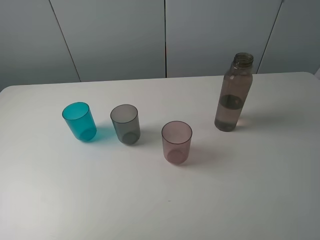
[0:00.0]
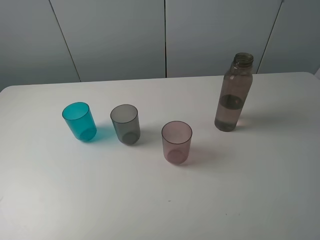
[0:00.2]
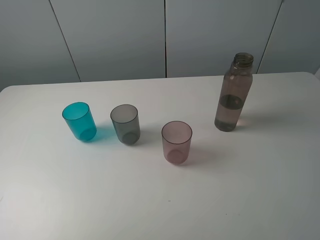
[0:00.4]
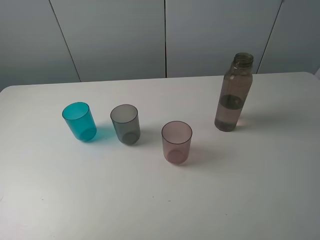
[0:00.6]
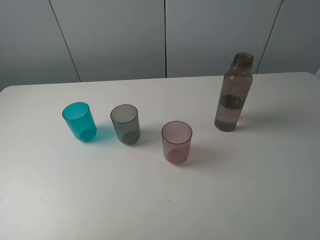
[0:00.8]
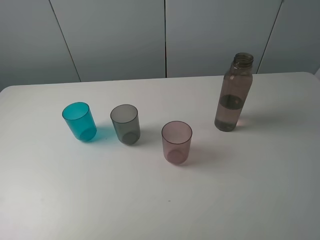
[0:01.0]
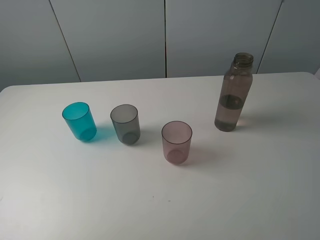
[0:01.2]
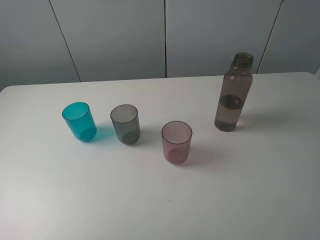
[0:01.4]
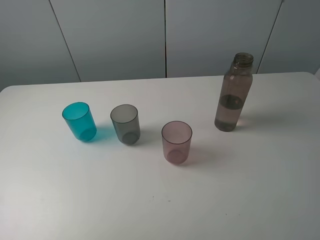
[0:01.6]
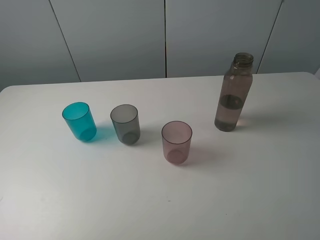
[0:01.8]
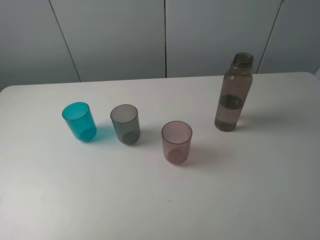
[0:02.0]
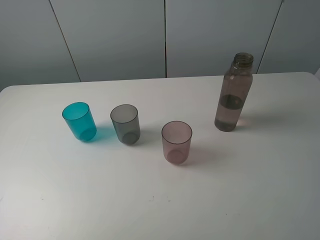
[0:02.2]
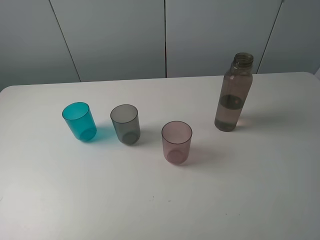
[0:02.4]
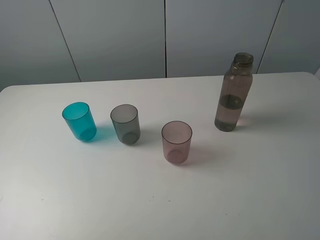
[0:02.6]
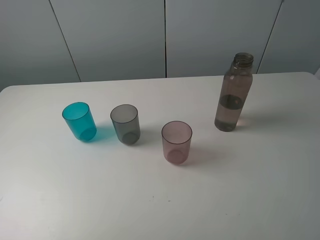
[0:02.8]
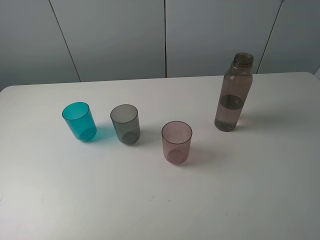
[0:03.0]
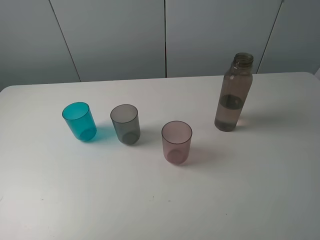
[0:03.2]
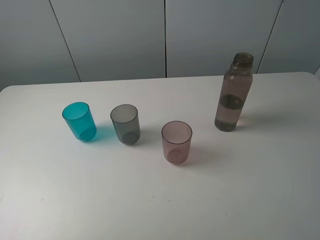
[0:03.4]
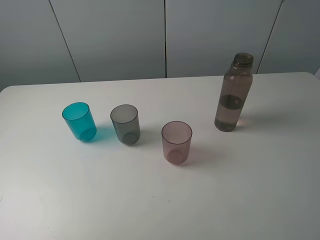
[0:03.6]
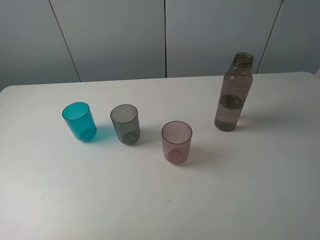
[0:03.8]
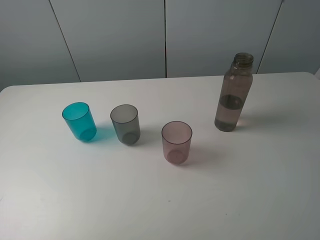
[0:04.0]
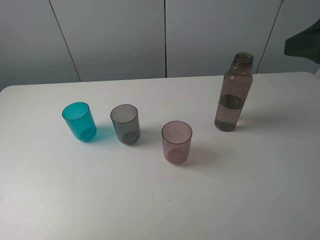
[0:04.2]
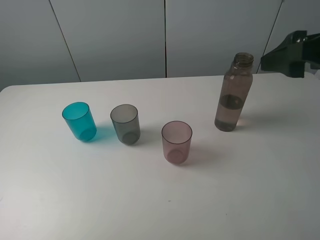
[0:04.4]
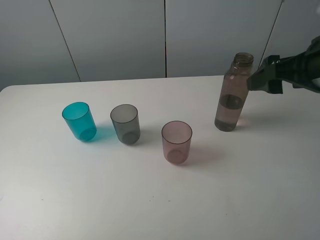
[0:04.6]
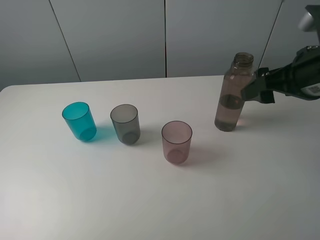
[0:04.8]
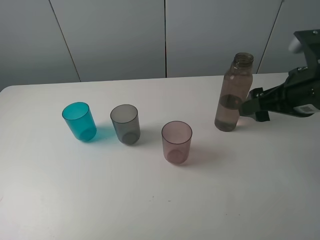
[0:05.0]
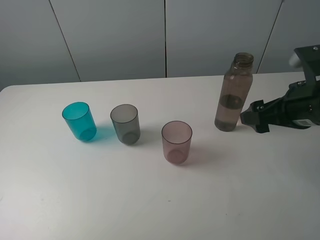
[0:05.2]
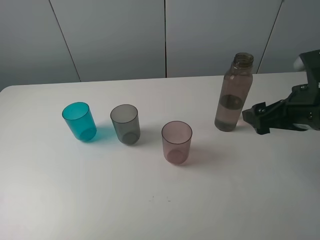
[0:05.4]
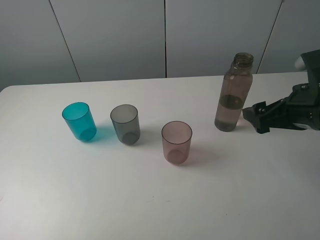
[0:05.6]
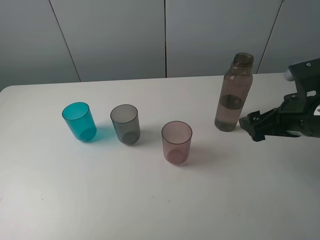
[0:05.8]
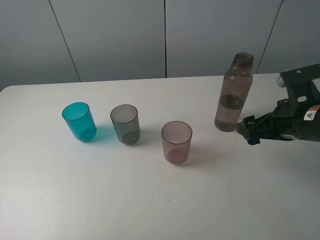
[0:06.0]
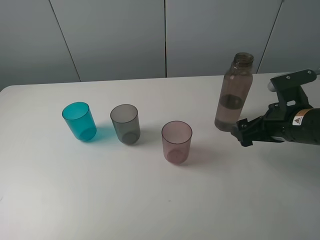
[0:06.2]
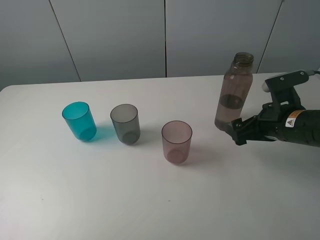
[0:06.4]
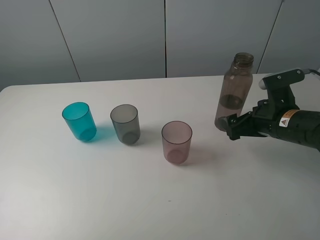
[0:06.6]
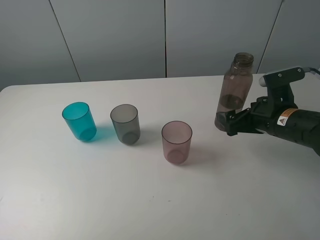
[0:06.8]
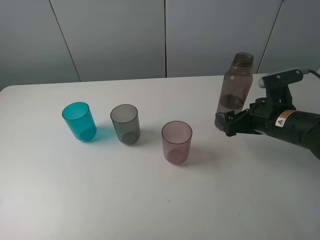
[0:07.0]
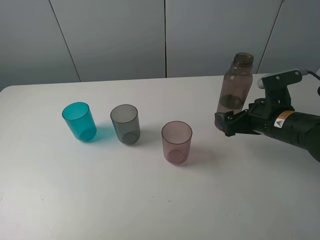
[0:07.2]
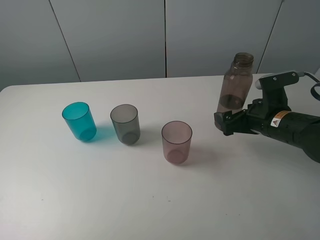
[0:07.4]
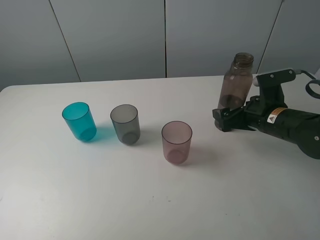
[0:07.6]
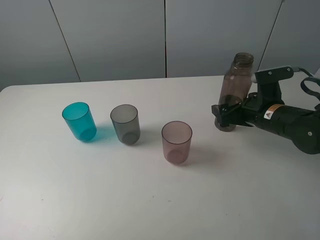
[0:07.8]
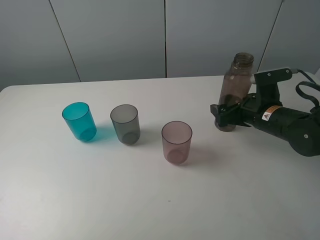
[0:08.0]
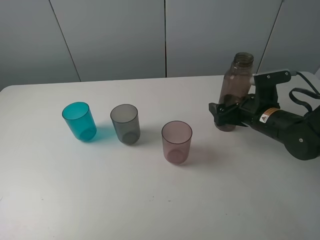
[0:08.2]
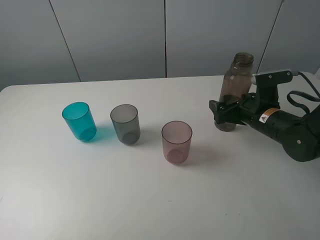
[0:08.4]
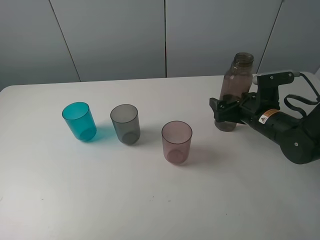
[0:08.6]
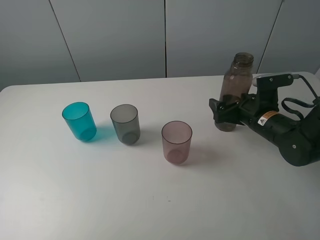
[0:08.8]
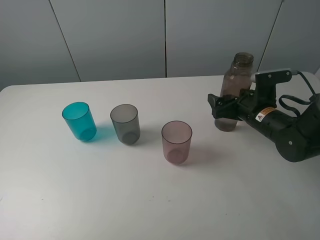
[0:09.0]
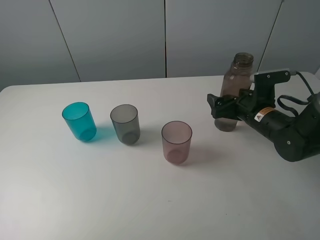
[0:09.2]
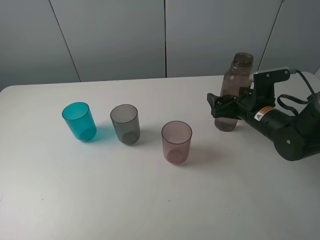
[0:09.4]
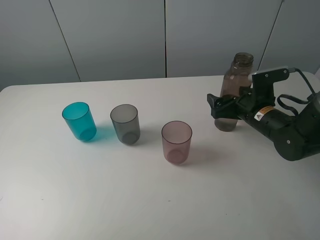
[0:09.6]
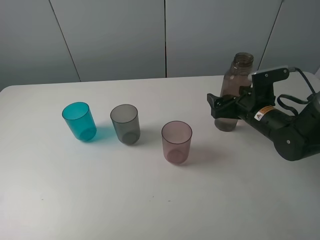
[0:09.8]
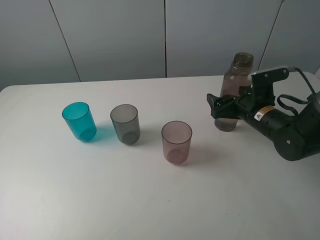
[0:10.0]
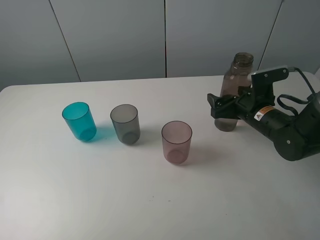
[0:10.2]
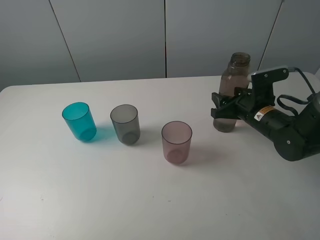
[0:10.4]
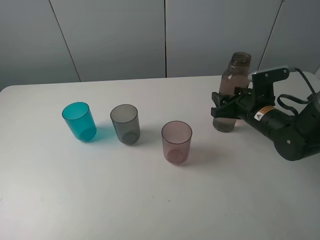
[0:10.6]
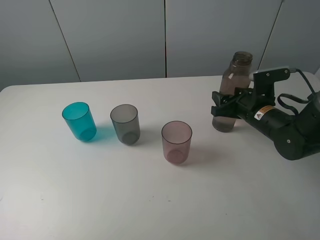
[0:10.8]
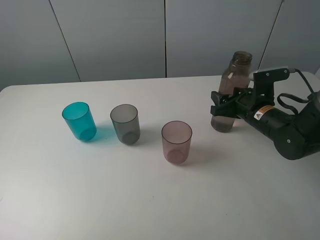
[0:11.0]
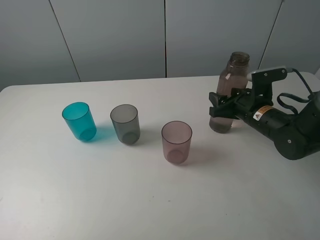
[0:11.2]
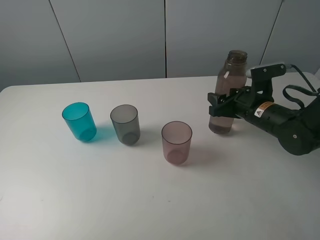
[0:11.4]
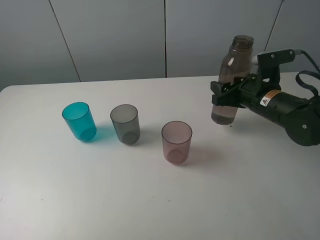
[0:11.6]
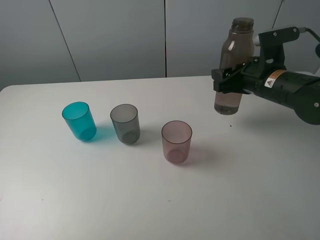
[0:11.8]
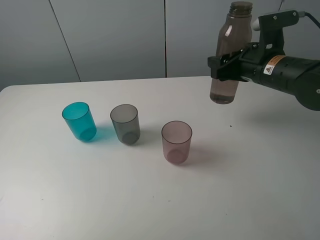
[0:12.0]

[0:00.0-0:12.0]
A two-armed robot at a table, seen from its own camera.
Task of the whole recording: pick up the bottle filled with water and pour water into the middle cup of the three cups.
Step, 0:00.0 to 0:11.2: Grasp the brown bottle with the right gripper.
0:00.0 to 0:03.0: Both grippers stay put.
0:03.0 to 0:04.4: The right gripper shifts approximately 20 cm forward.
0:04.4 to 0:06.0: The right gripper shifts some 15 cm downward.
0:06.0 to 0:07.6: The right gripper shifts roughly 5 cm forward.
0:07.6 to 0:09.0: The grippers stay close to where they were, moving slightly.
0:09.0 to 0:10.4: The right gripper closes its fingers.
0:10.4 to 0:12.0: The right gripper shifts roughly 10 cm upward.

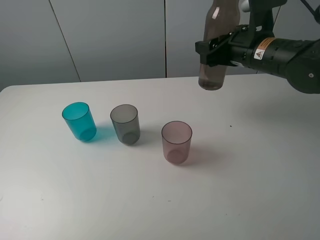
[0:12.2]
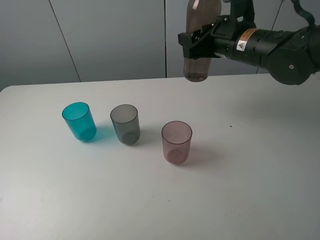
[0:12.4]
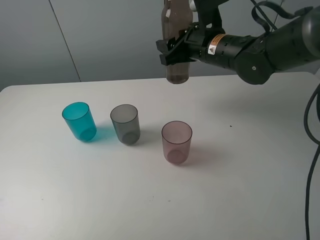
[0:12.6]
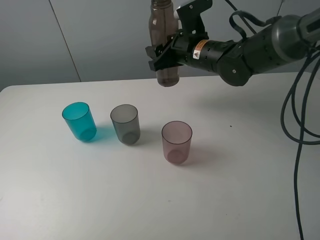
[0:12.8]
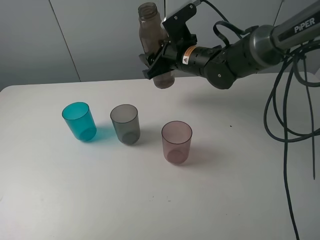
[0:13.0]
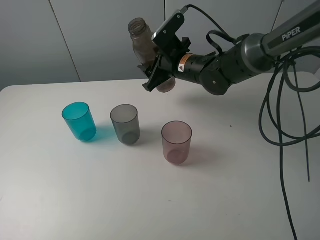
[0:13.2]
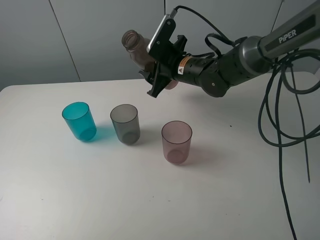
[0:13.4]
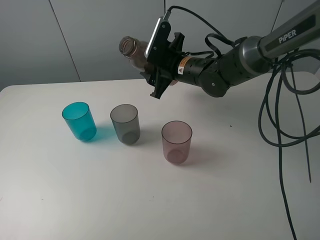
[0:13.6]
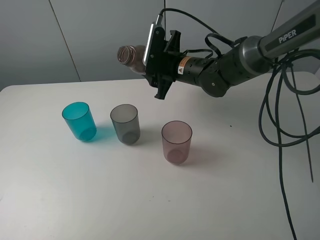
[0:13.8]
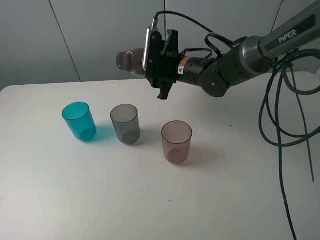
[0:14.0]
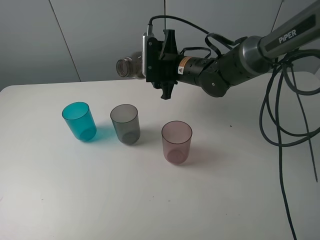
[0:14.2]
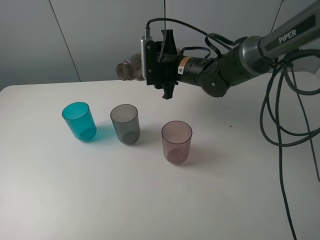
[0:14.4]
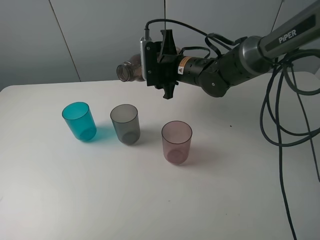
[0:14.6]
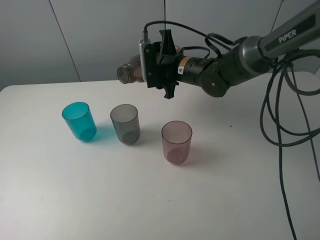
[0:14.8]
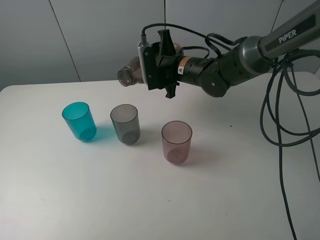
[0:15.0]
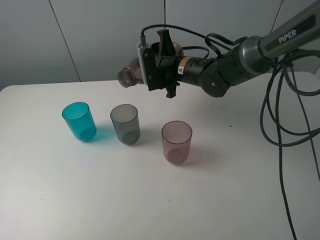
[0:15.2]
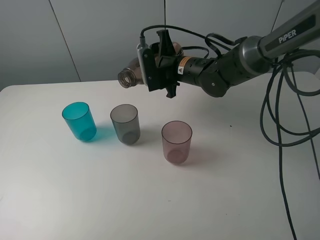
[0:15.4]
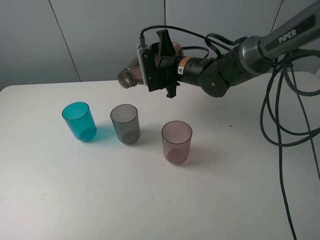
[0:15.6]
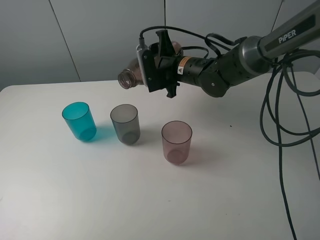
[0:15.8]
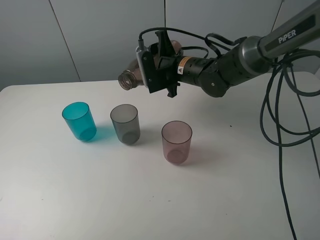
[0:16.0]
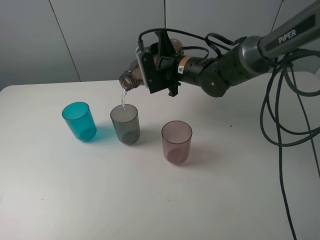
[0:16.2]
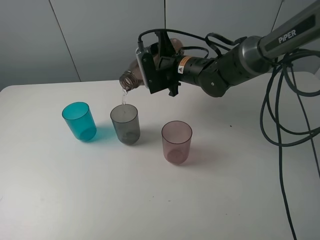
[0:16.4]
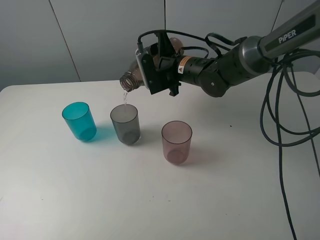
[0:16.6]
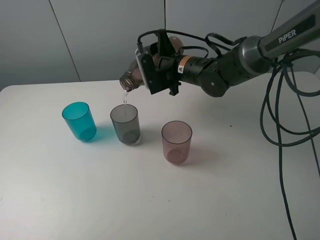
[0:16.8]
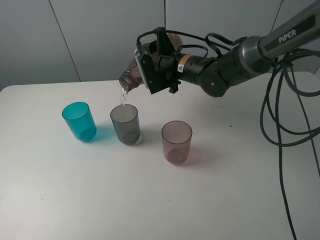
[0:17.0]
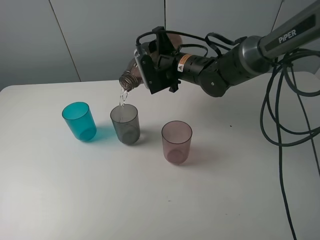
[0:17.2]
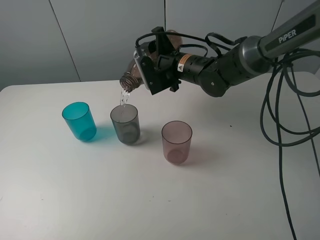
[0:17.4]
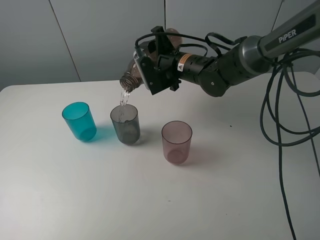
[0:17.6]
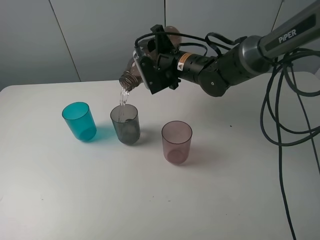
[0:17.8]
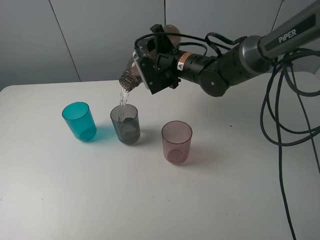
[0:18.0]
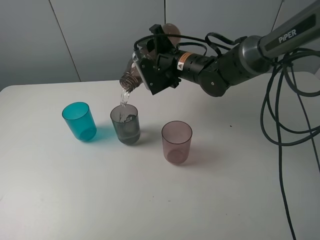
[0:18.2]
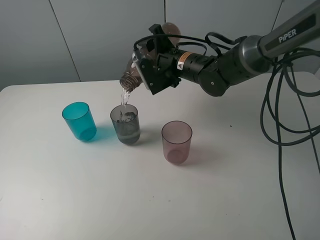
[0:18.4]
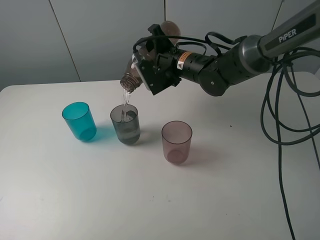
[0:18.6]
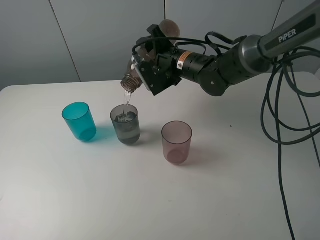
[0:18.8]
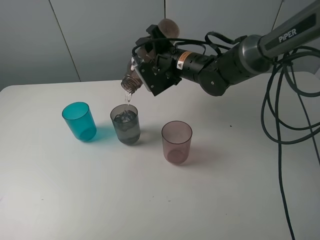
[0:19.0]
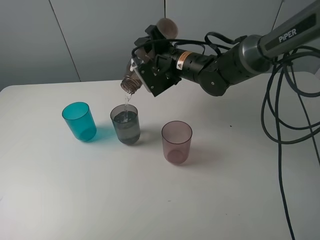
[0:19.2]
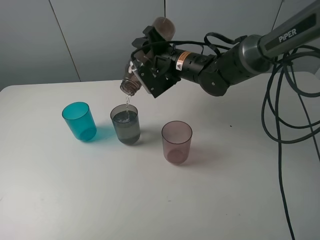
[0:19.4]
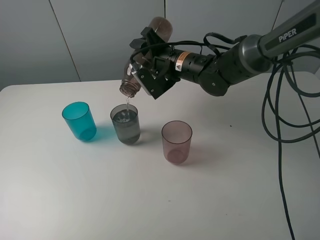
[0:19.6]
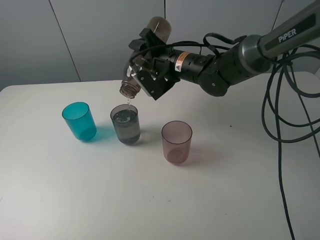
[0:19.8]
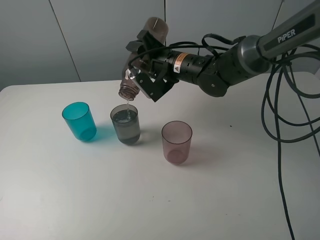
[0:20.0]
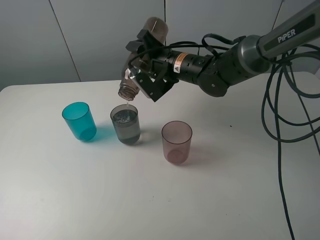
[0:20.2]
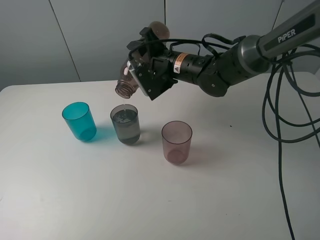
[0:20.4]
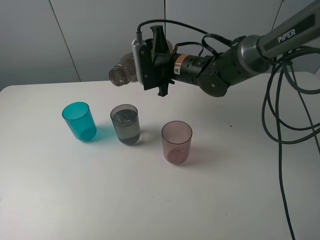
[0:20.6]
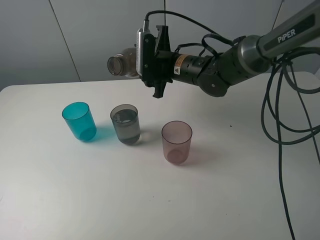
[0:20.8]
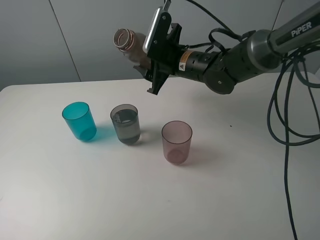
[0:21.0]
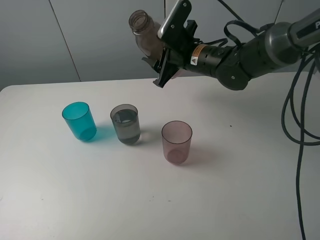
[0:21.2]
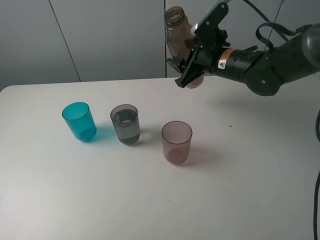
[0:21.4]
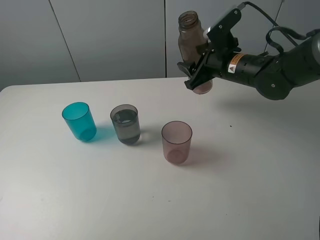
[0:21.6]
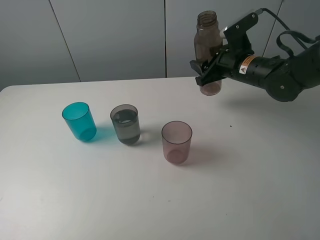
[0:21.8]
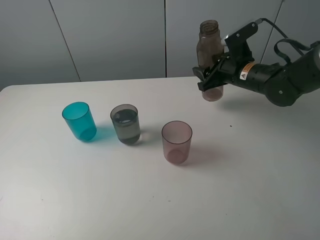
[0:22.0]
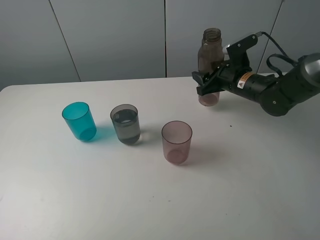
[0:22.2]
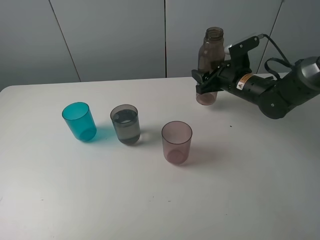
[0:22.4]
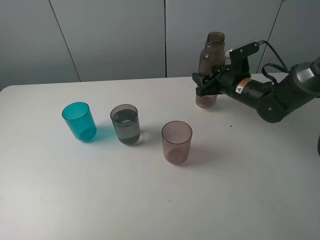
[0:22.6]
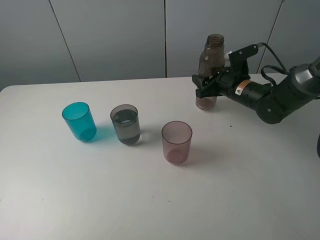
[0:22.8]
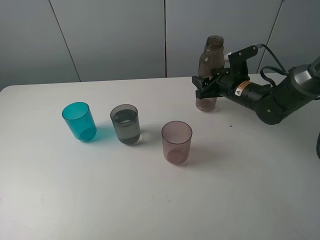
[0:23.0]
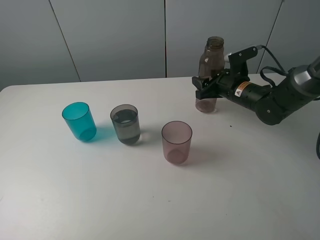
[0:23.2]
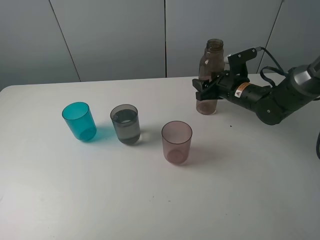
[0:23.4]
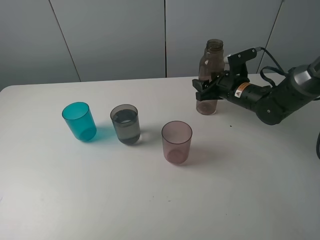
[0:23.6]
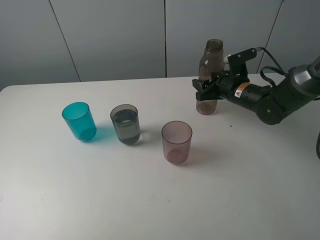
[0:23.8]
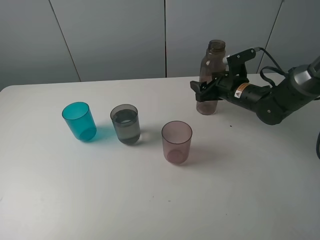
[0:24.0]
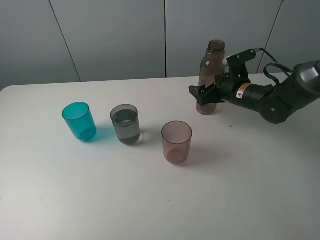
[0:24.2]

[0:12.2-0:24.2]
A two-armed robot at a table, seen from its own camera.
Task of the whole recording: pick up the bottle filled with water and pour water into the middle cup of the three cups.
Step, 0:12.2 to 0:21.2: Pour water from brown bottle to grey cup with the right gripper.
0:12.2 to 0:13.8: The right gripper moves to the left, downward and forward, about 15 cm.
0:15.2 to 0:18.2: The grippers move only a little.
0:18.2 to 0:19.8: The grippers make only small movements.
0:19.8 to 0:21.2: The right gripper shifts by roughly 5 cm.
0:21.2 to 0:22.6: The right gripper moves to the right and downward, roughly 15 cm.
0:22.6 to 0:24.2: The right gripper opens up.
